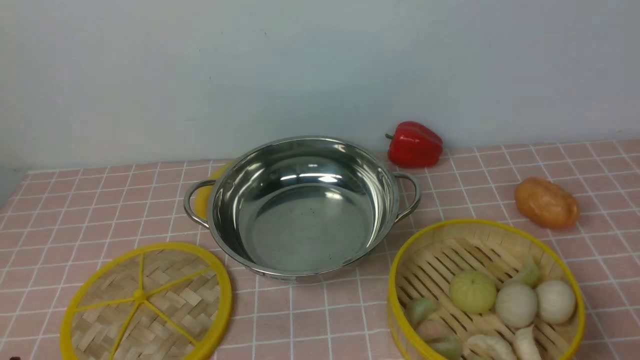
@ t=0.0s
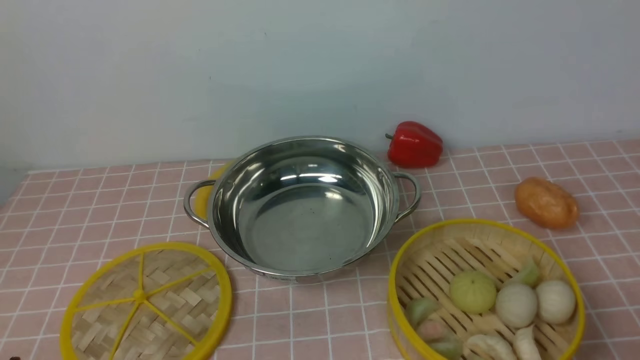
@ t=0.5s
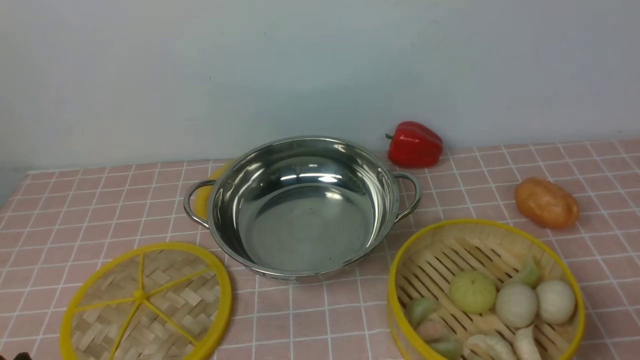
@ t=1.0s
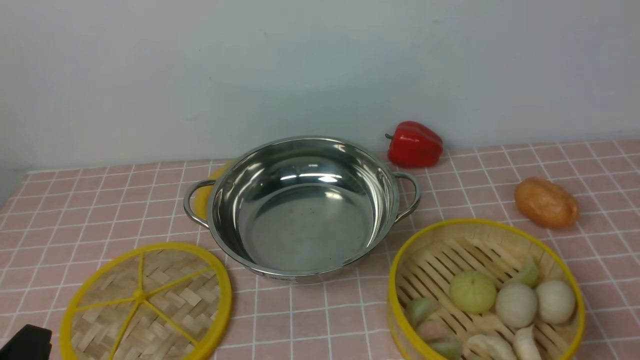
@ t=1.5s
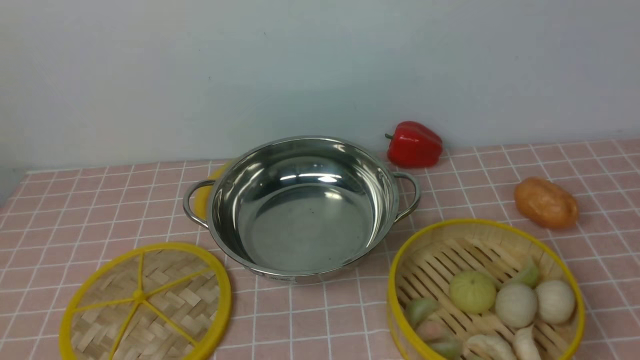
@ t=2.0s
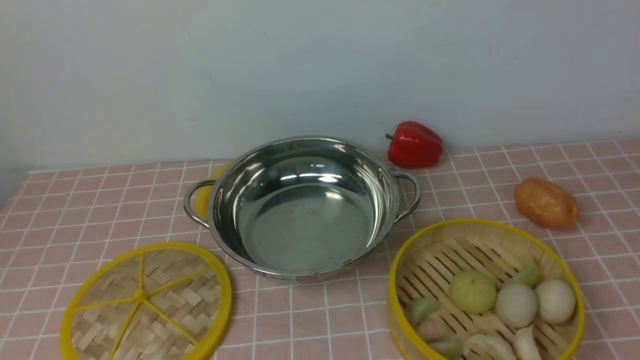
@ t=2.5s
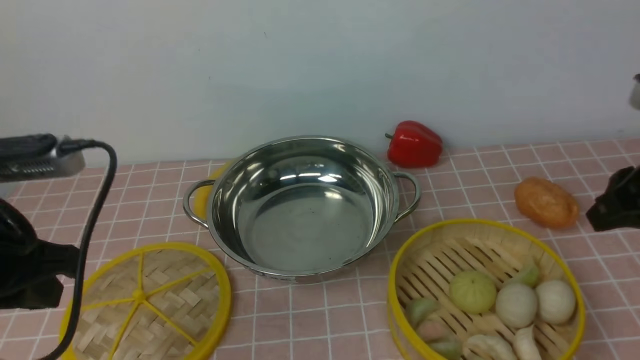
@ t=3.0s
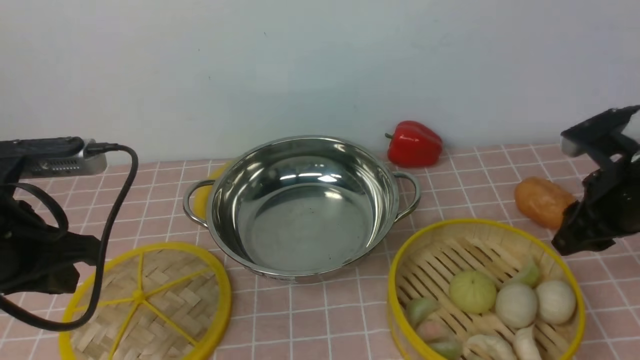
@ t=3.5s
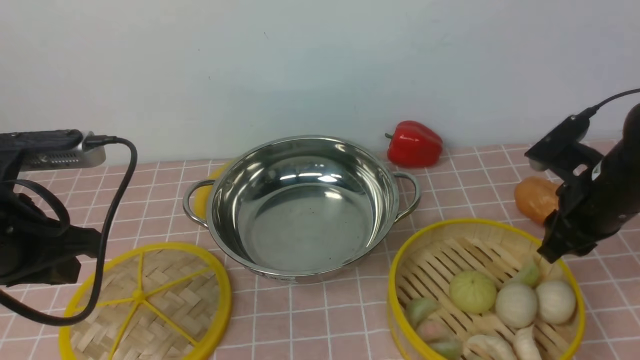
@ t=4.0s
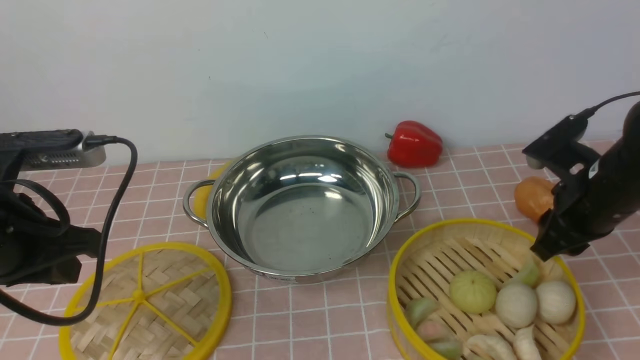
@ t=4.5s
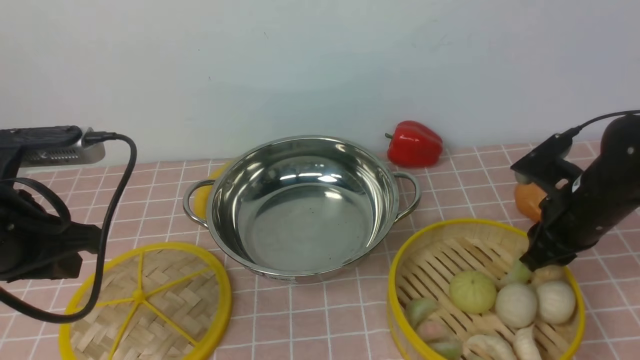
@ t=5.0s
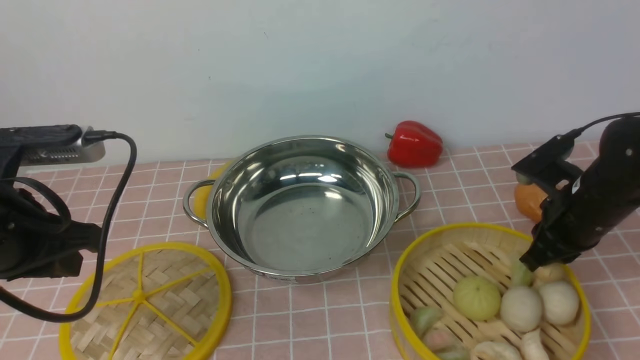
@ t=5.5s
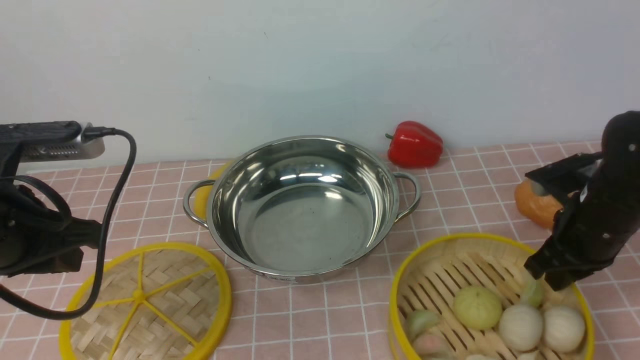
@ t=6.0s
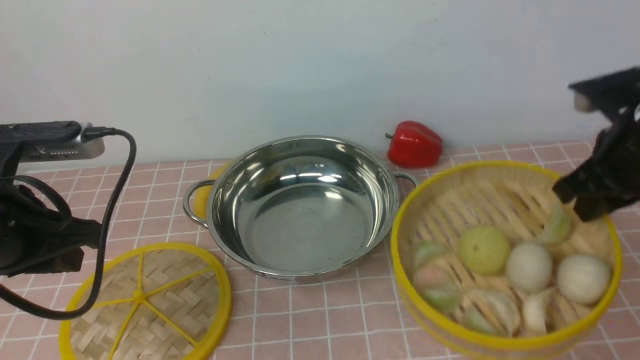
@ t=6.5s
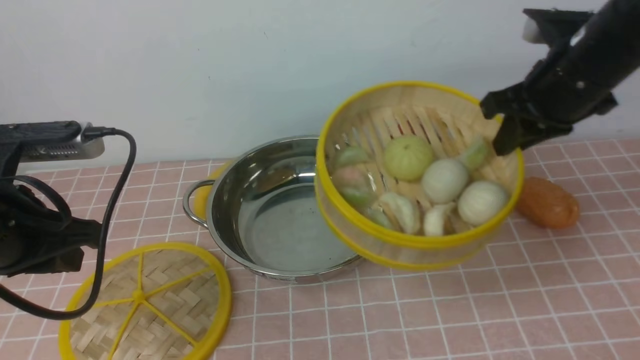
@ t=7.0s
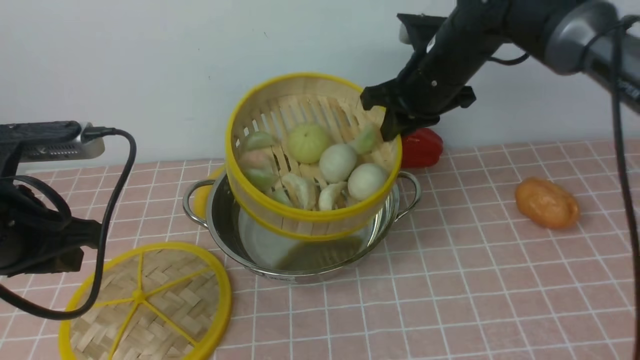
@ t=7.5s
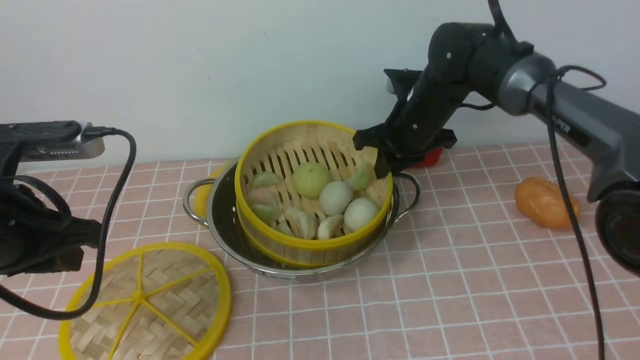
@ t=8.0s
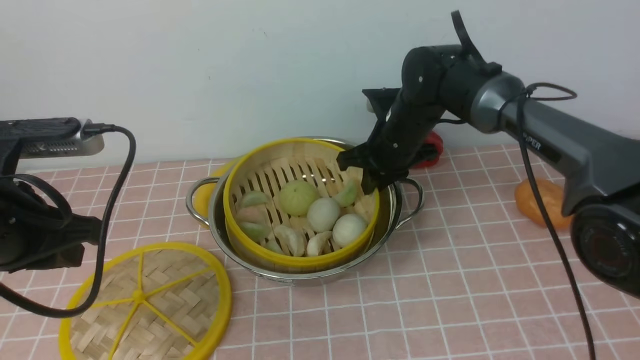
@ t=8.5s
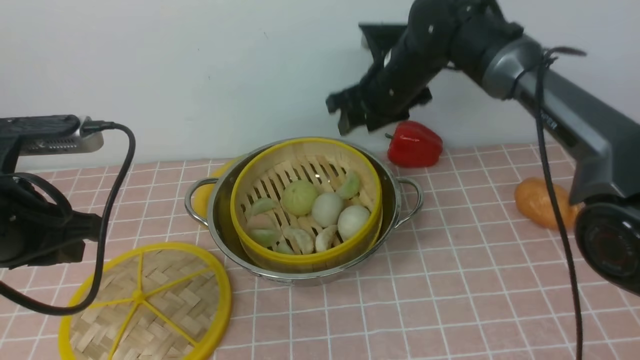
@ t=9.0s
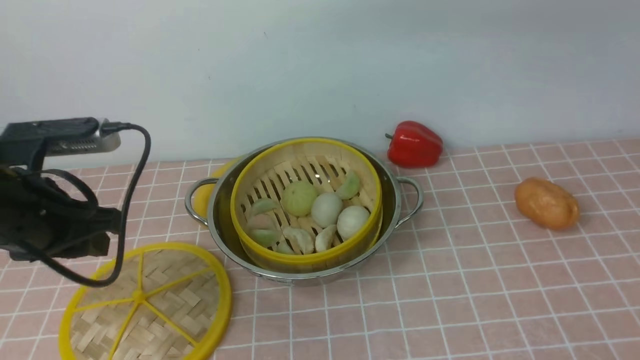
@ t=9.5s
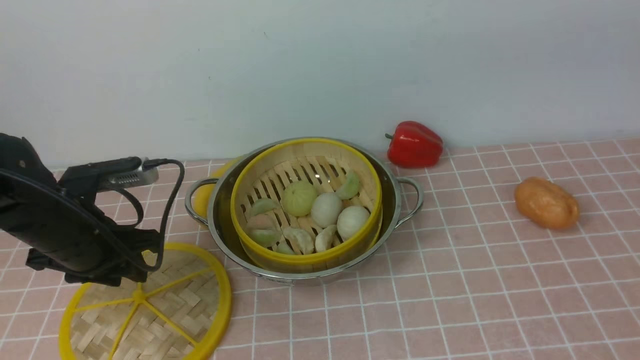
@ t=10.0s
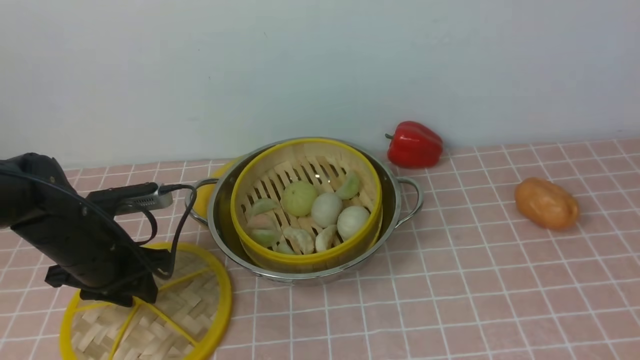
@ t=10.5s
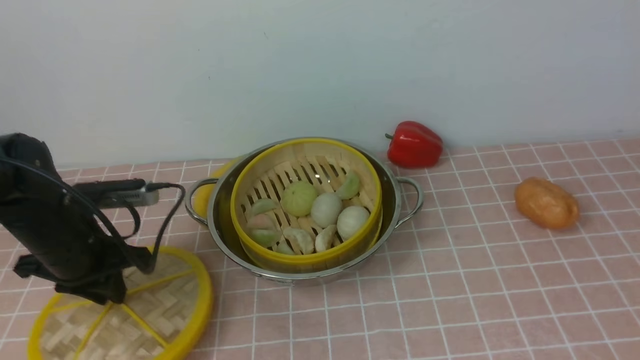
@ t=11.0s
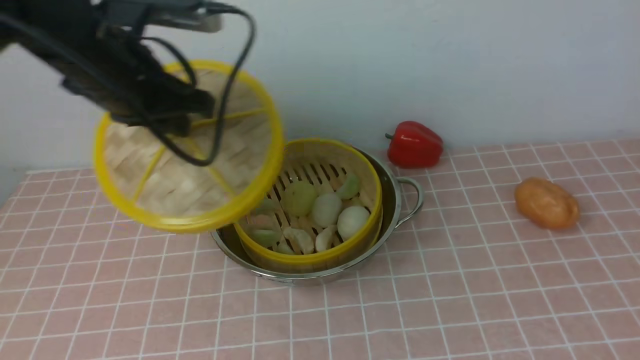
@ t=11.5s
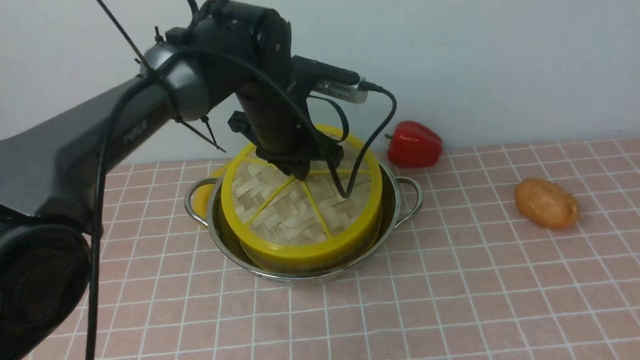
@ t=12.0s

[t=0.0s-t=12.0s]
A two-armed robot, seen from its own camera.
Task of the whole recording: place the steamer in the pot on the pink tablecloth, and put the lid on the steamer.
Step, t=0.0s to t=6.0s: use the right arm to lift the steamer closest to it.
Step, t=6.5s to t=8.5s: use the right arm to put the steamer into the iron steamer pot in the middle.
Step, t=9.0s to t=11.0s: use the left arm to lift the lid of the steamer.
t=2.0s to t=4.0s: The right gripper heads forward and downward, covering roughly 35 cm. Meanwhile the left gripper goes roughly 20 cm forward.
t=6.0s to t=8.0s: The right gripper is displaced to the left and forward by approximately 20 cm.
t=8.0s to t=10.0s: The right gripper is displaced upward and backward by about 40 cm, and opens. The left gripper shifts some 10 cm downward and forward, and opens its fingers.
t=10.0s to t=12.0s: The left gripper shifts roughly 25 cm to the right and forward, and closes up. The right gripper is displaced backward and to the right by approximately 15 cm.

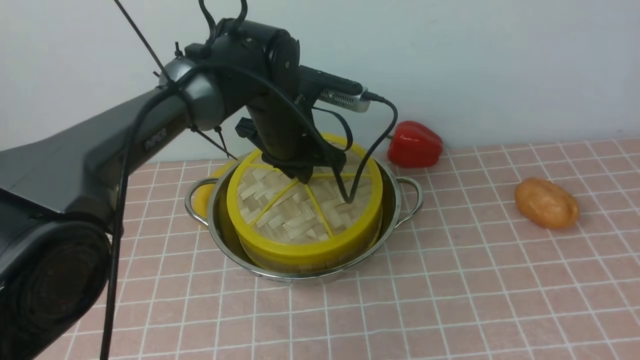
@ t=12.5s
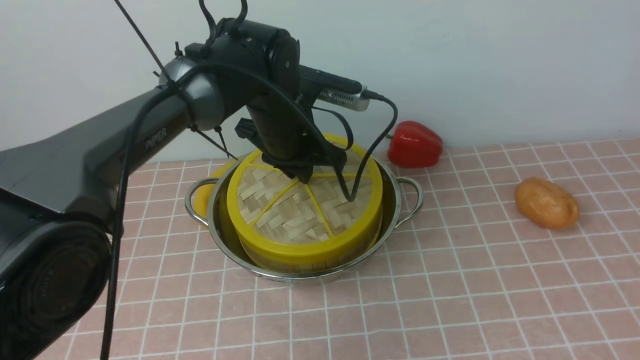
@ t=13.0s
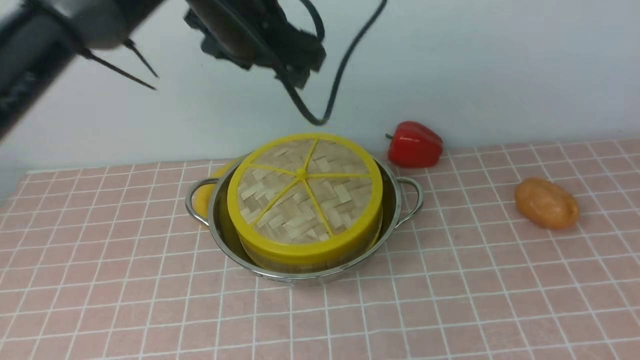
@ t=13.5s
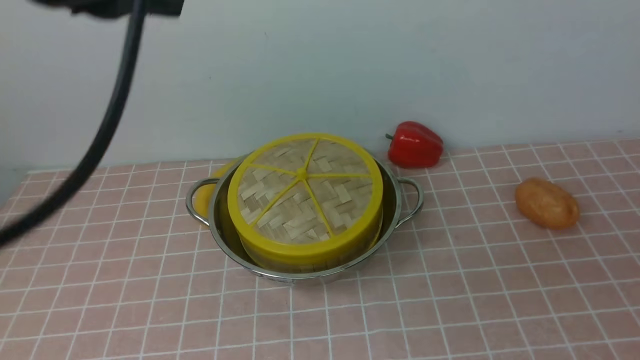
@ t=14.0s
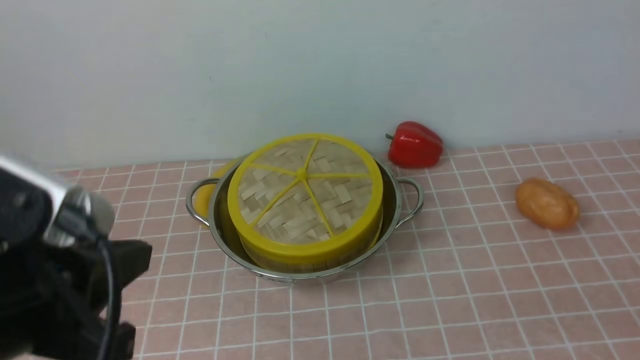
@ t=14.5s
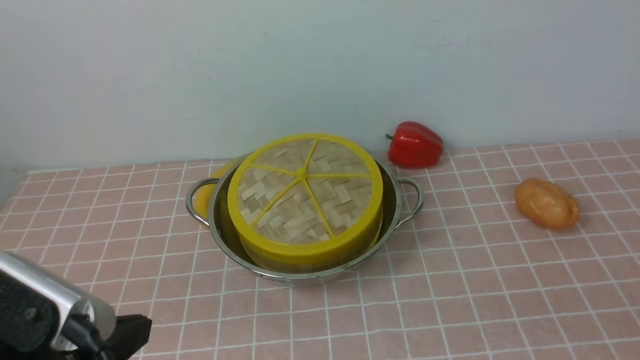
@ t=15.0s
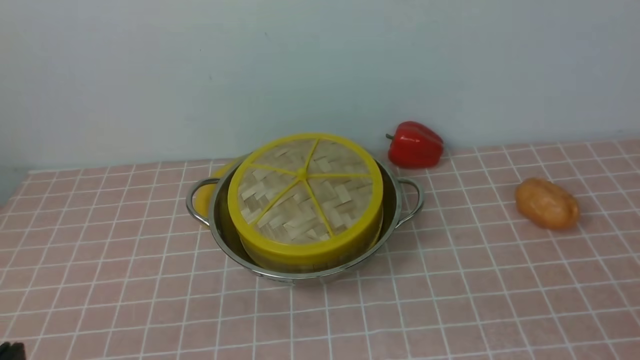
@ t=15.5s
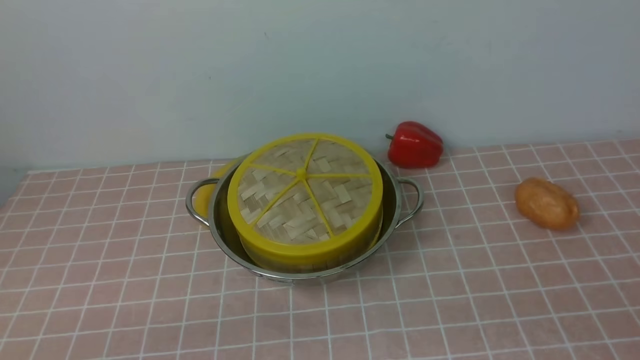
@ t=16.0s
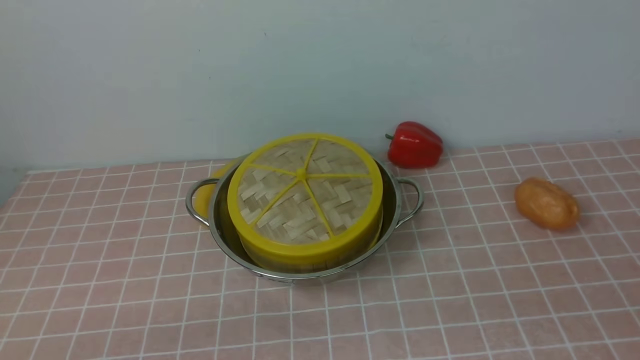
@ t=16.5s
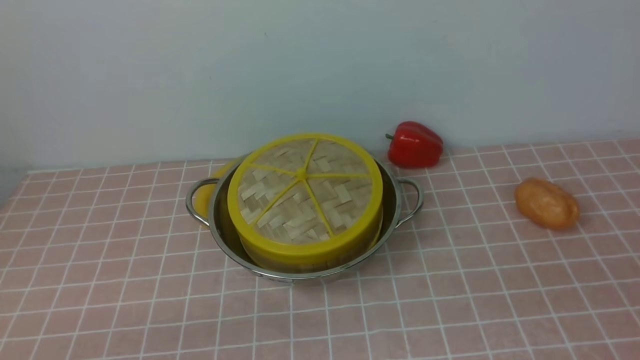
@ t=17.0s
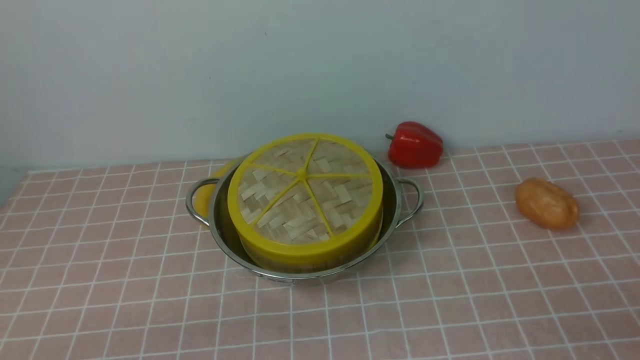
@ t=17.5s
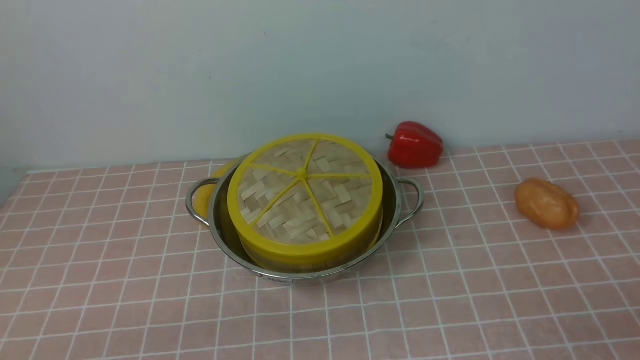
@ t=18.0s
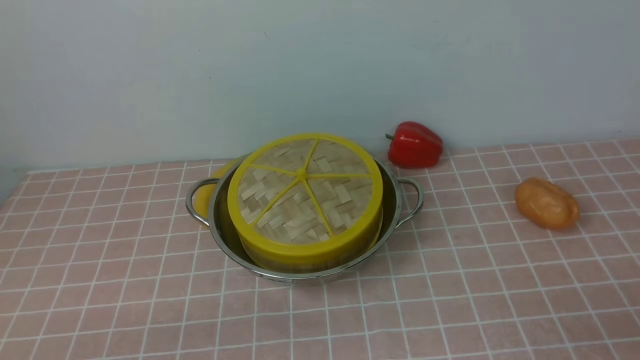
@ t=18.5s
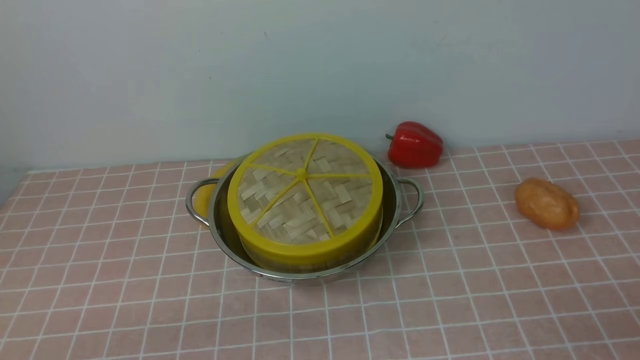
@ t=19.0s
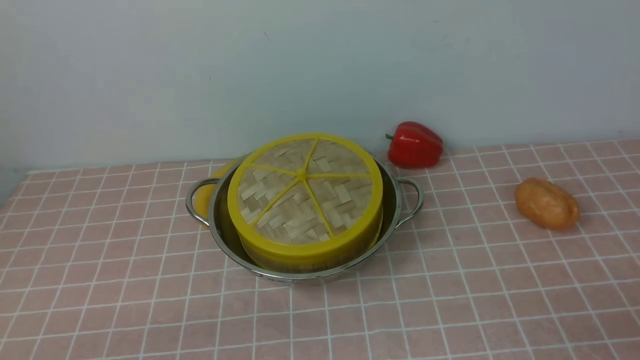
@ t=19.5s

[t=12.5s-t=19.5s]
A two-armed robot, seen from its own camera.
Task of the whole recording: place the steamer in the pot on the pink tablecloth, and put the lid on the steamer.
t=12.5s to t=14.5s: The left gripper goes approximately 35 cm backward and to the left, and closes up, while the right gripper moves downward, approximately 20 cm, and closes its fingers.
t=14.5s to t=16.0s: The left gripper goes approximately 20 cm downward and to the left.
t=17.5s to t=19.5s: Both grippers stay put.

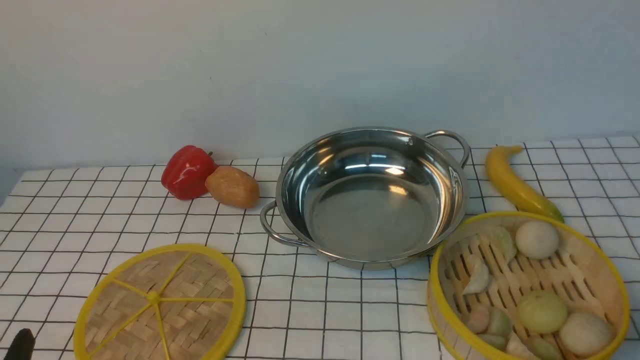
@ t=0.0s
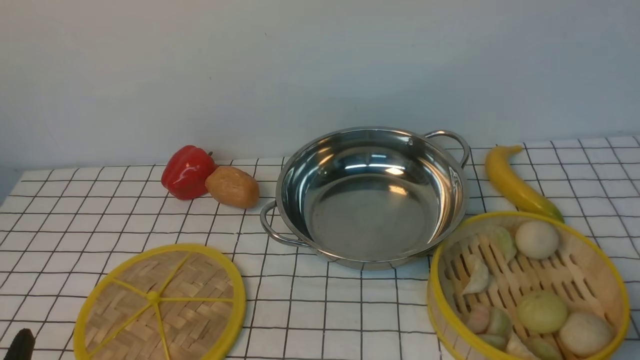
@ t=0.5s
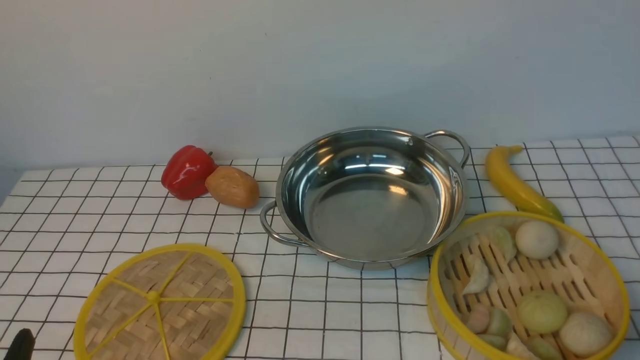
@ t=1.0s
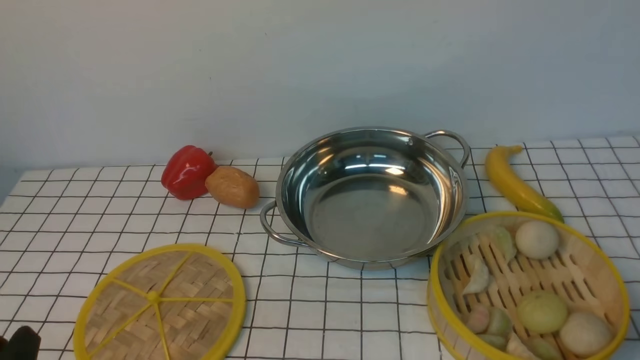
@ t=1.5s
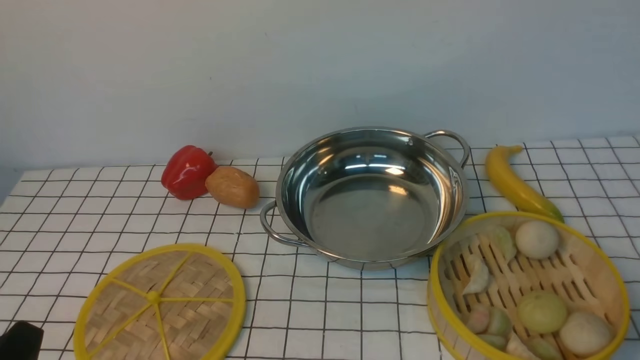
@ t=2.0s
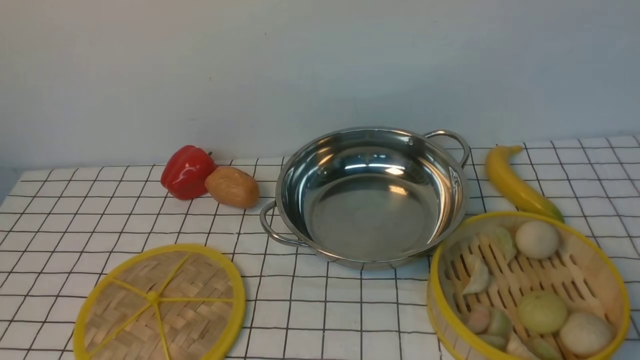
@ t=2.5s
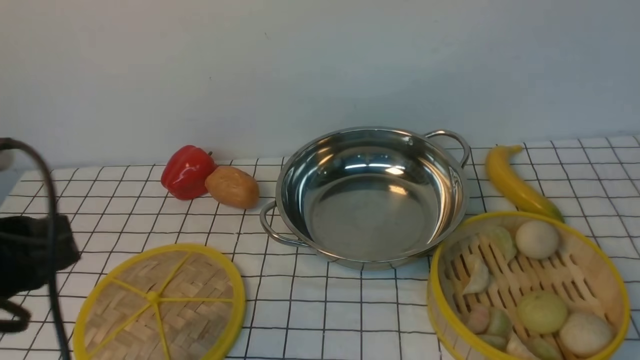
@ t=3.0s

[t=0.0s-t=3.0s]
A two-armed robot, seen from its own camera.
Task of the whole recording: place the steamer in the pot on the white tablecloth, and put the lid on the steamer.
t=1.5s to t=3.0s: The left gripper goes some 15 cm upward and forward.
